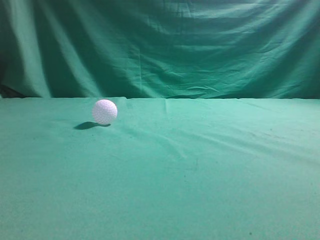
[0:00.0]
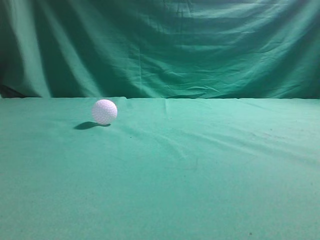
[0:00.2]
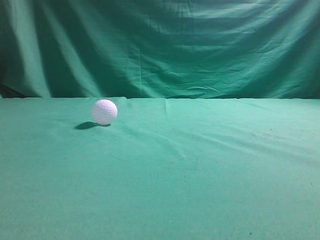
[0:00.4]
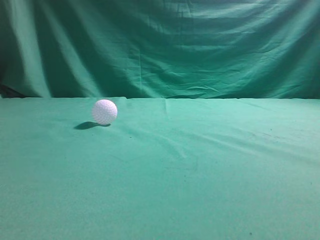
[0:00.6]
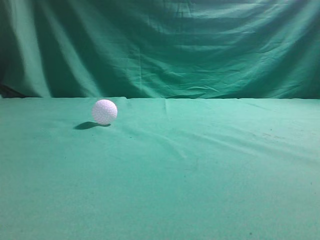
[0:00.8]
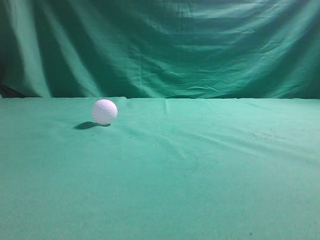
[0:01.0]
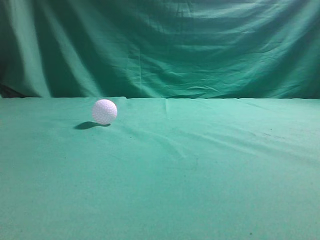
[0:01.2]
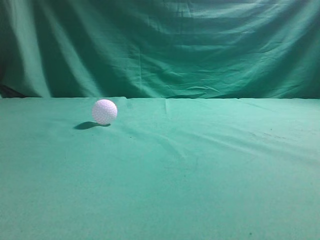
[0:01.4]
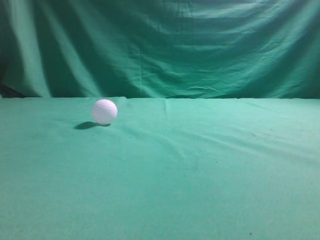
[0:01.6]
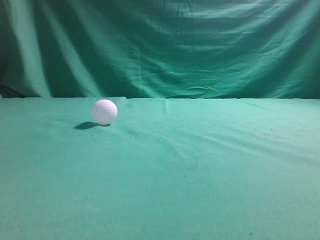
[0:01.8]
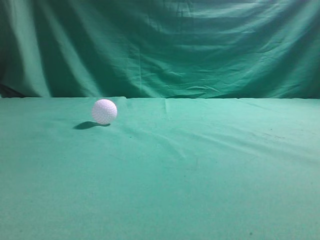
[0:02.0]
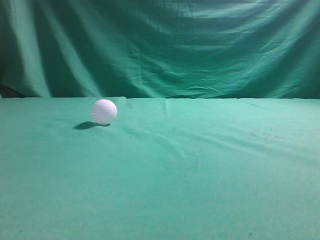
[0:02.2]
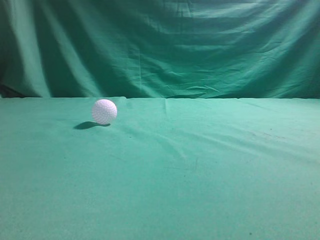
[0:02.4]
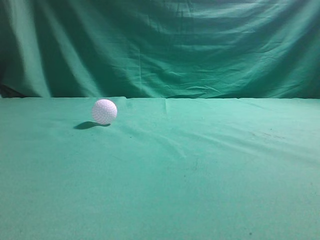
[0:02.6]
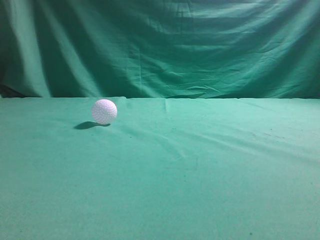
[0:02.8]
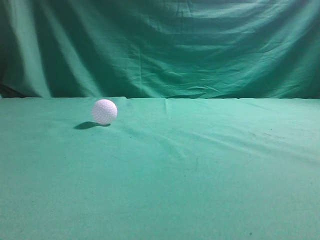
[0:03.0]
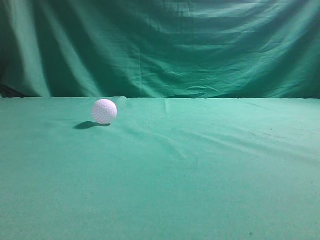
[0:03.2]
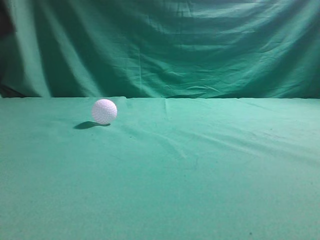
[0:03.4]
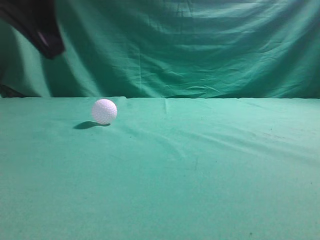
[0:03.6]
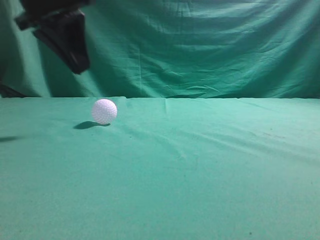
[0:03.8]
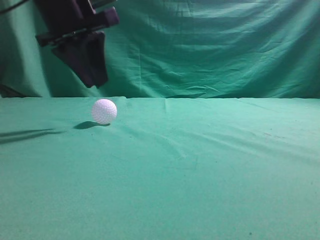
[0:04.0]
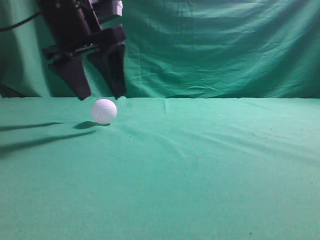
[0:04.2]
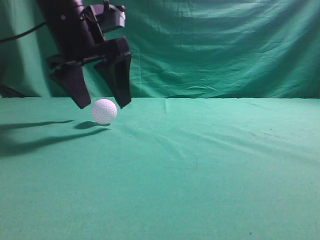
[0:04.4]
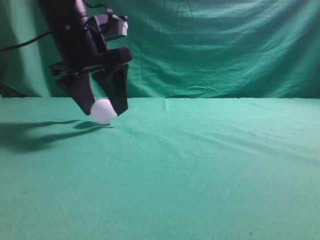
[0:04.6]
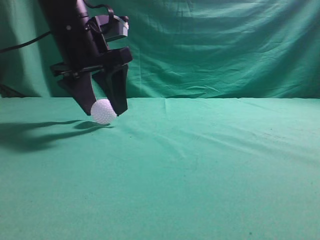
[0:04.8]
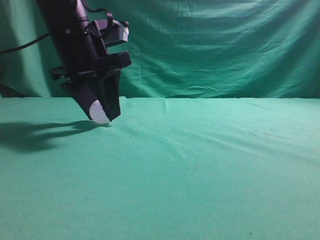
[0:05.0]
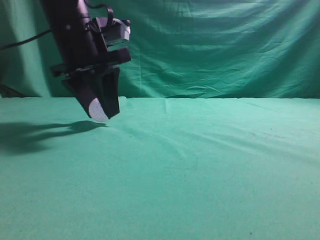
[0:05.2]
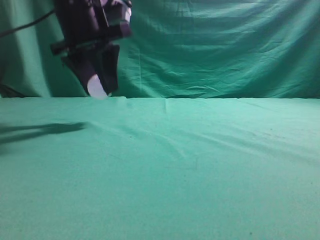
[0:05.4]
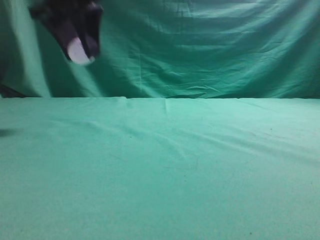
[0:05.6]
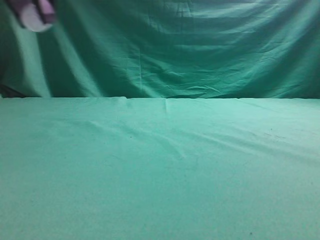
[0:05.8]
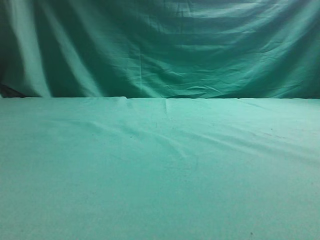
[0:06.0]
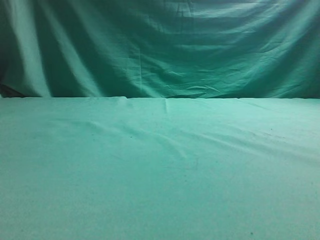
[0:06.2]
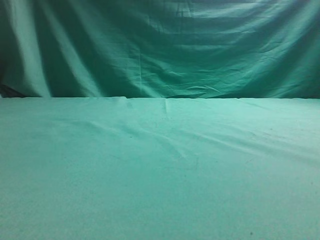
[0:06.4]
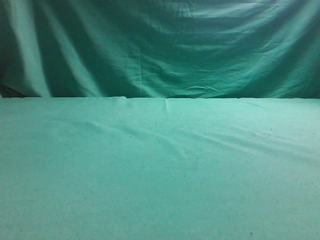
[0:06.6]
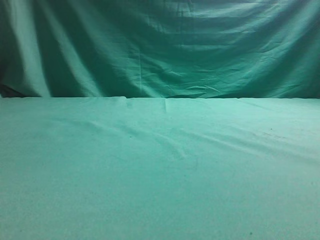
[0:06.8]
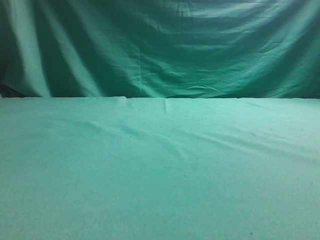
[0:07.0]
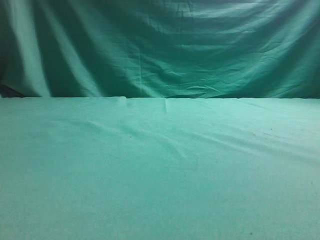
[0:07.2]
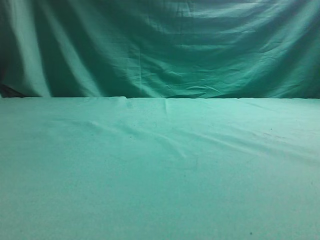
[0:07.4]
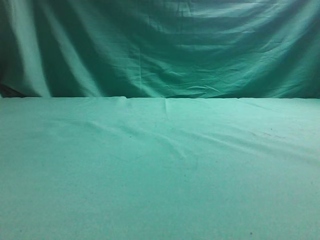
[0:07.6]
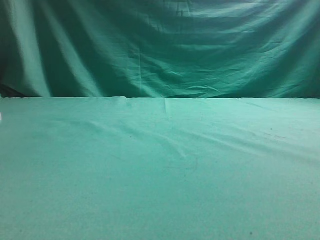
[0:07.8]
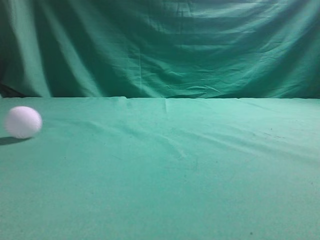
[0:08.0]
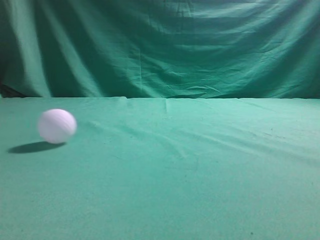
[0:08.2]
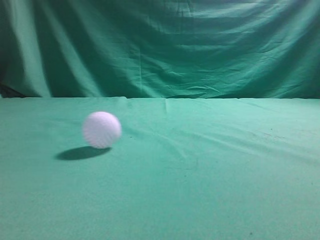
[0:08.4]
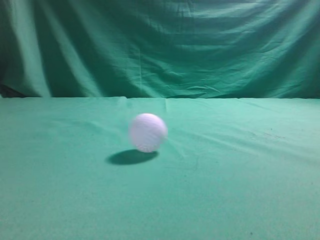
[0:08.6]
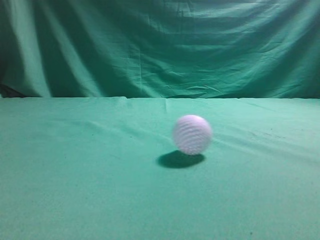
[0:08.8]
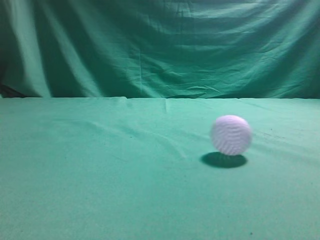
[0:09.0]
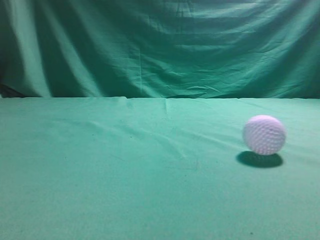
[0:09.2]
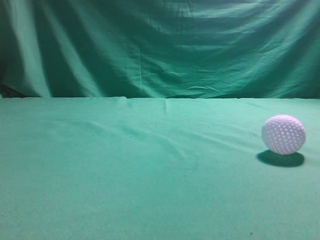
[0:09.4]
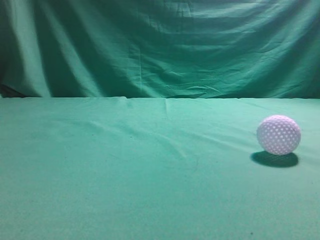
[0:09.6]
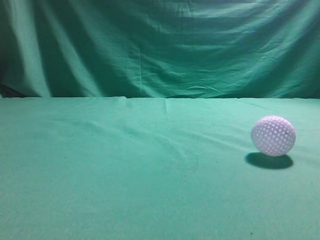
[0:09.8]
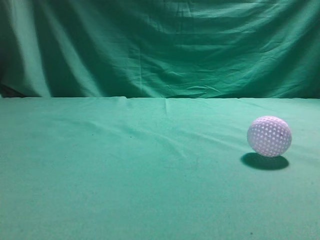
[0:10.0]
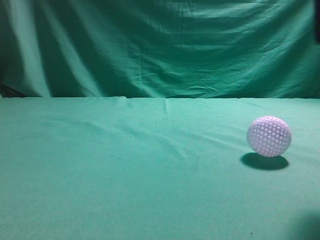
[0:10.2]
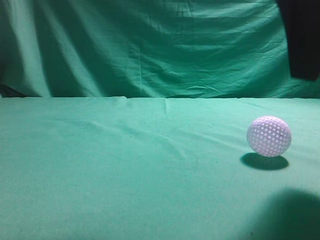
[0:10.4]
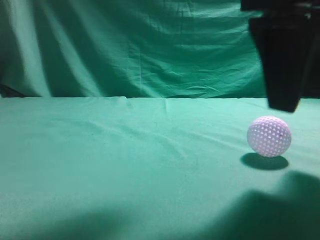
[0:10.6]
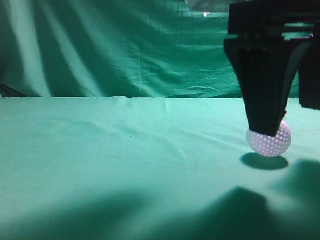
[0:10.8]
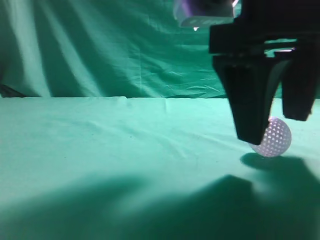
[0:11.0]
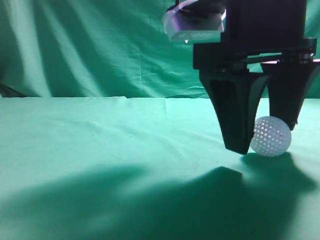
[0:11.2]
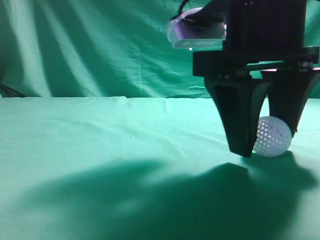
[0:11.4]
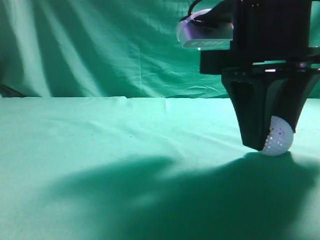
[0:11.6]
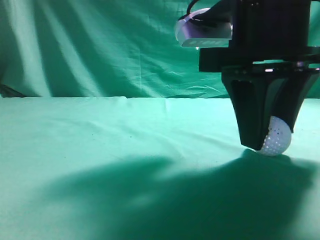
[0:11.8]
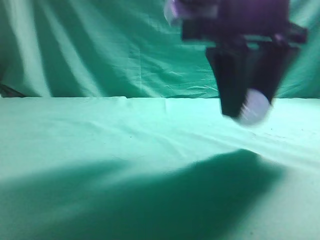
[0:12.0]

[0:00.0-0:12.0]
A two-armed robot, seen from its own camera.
Task of the whole recording: pick up the ball and place it on the plate, then pick up the ball from the plate and put it in the center of the table.
Step, 0:00.0 to 0:05.2: Grab the spherical object with your left arm.
Step, 0:05.4 to 0:07.4: Place the sphere on the white object.
Step, 0:07.6 to 0:11.8: Grab the rolling spherical object.
0:03.0 to 0:04.4: The left gripper shifts roughly 25 cm forward and to the right, and opens.
0:04.4 to 0:06.0: The left gripper shifts roughly 20 cm to the left and upward, and closes.
0:07.6 to 0:09.0: The right gripper heads upward, covering approximately 10 cm.
0:09.0 to 0:10.4: The right gripper heads to the left and forward, covering approximately 20 cm.
0:10.4 to 0:12.0: The right gripper travels forward by approximately 5 cm, and opens.

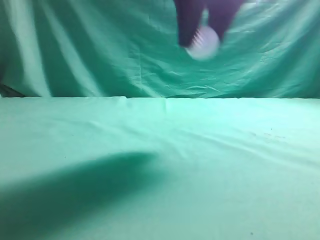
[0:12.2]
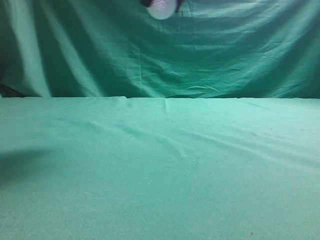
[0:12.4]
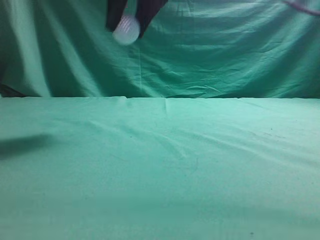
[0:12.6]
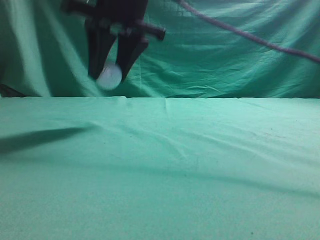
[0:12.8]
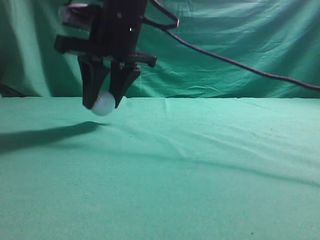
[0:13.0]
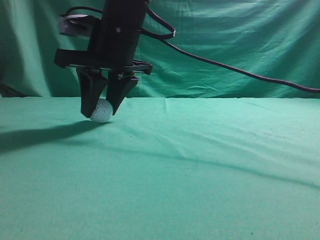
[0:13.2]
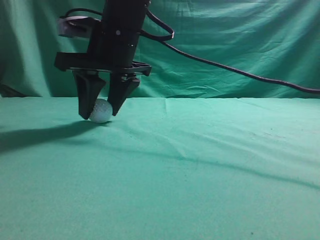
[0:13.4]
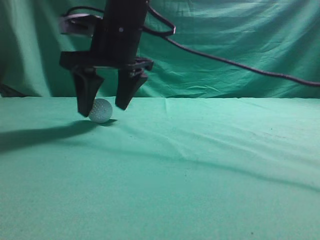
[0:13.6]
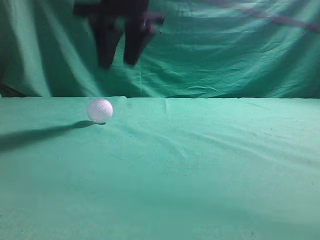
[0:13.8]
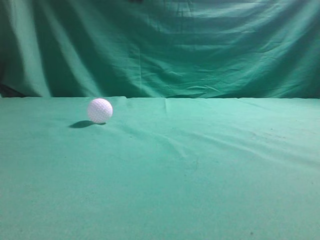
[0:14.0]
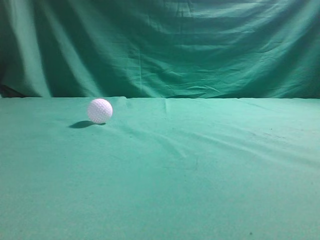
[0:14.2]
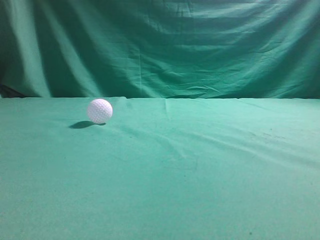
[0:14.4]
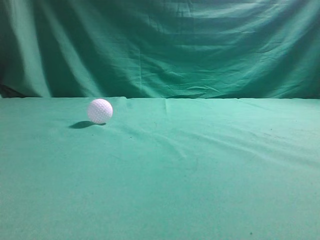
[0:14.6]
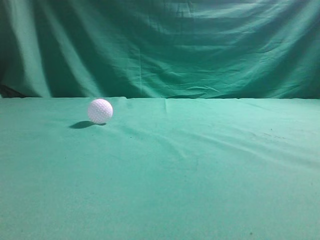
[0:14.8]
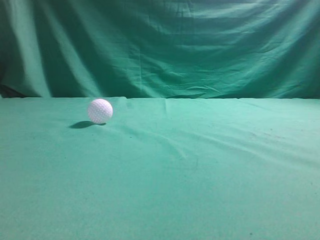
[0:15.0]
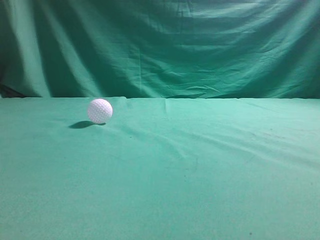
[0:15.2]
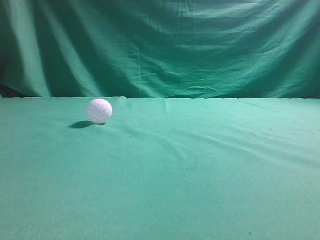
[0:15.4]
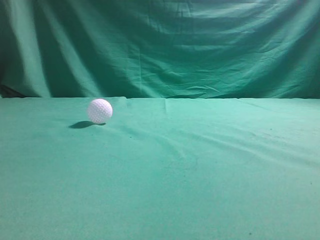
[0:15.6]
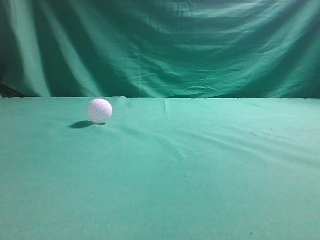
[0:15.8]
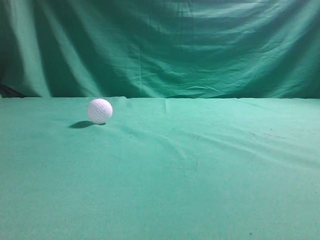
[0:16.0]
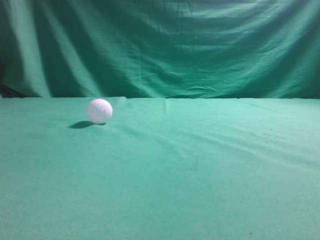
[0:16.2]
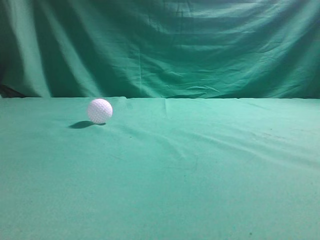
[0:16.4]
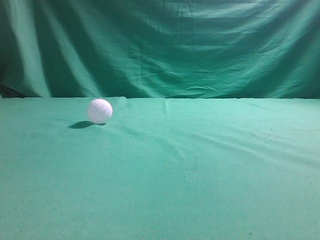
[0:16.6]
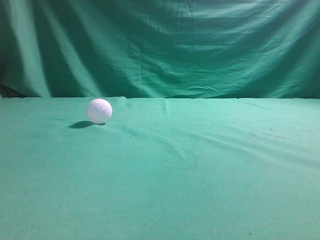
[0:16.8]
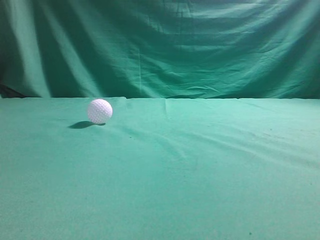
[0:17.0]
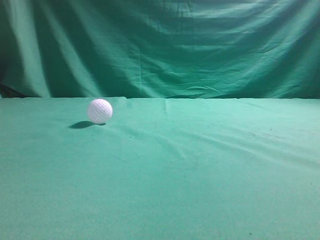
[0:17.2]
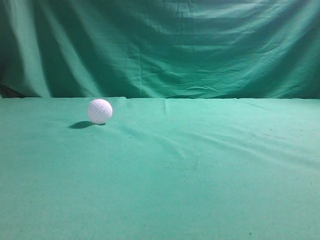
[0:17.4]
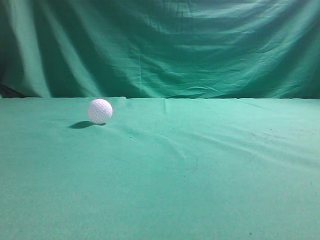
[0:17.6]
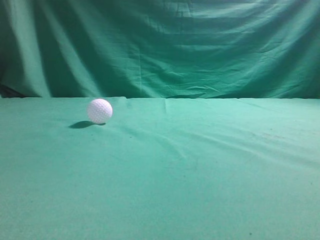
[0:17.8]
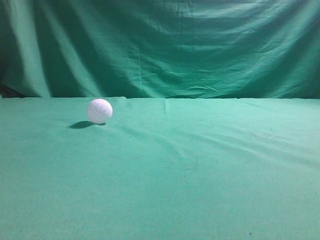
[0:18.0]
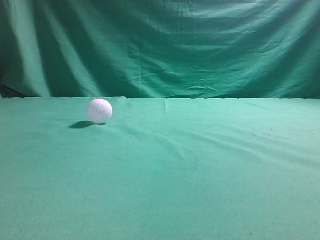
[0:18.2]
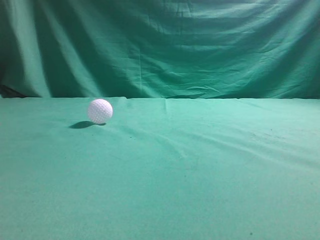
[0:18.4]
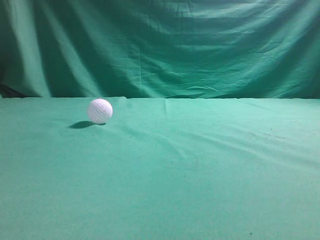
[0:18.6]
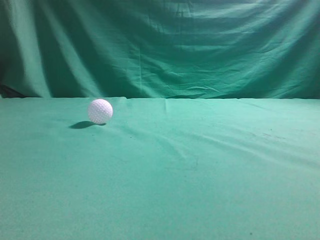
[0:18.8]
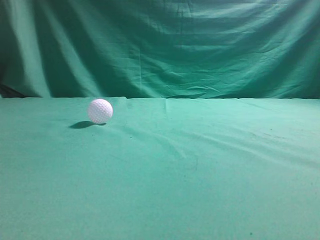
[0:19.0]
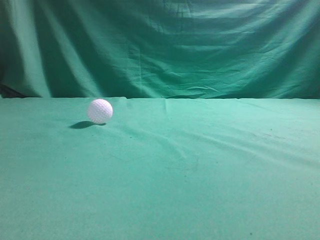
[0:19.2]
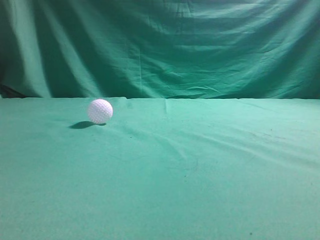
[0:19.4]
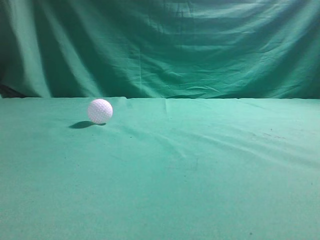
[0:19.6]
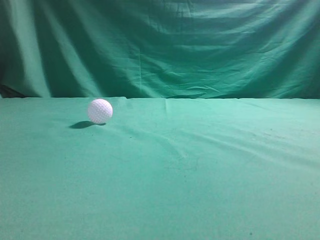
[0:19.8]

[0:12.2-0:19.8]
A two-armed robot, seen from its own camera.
Task of the whole recording: pick up the ball and place it on the plate, then pick up the ball from the plate and put it in the center of the table.
Step, 0:12.2 to 0:13.6: Put the picked-up object on the table.
0:12.2 to 0:13.8: The right gripper moves up and down over roughly 15 cm, changing direction 2 times.
0:13.8 to 0:15.2: The left gripper goes about 15 cm backward, while the right gripper goes some 40 cm backward, to the right and upward, and closes its fingers.
